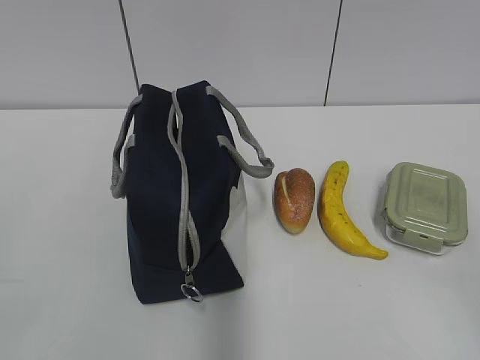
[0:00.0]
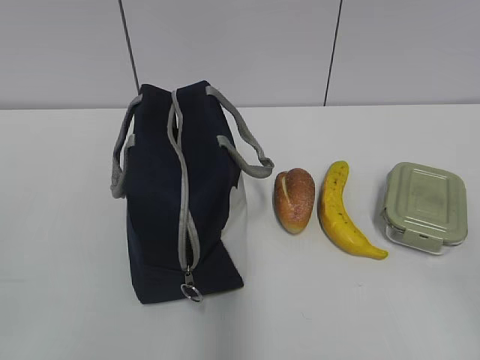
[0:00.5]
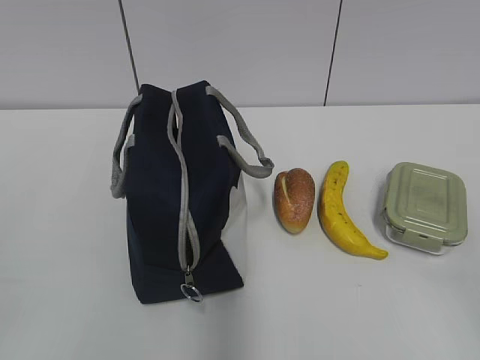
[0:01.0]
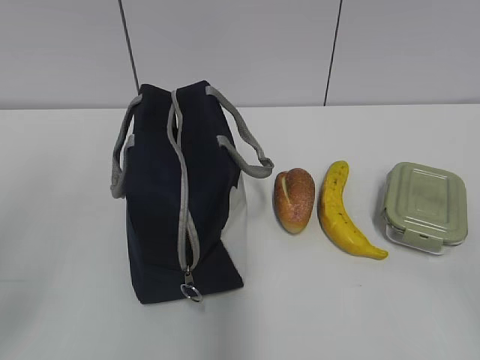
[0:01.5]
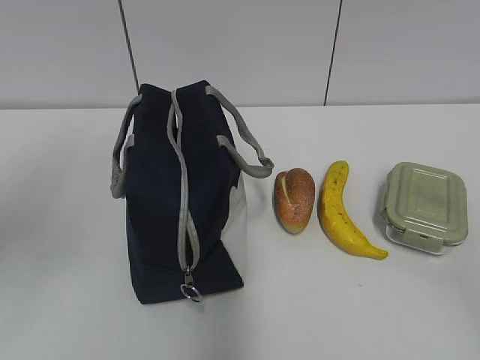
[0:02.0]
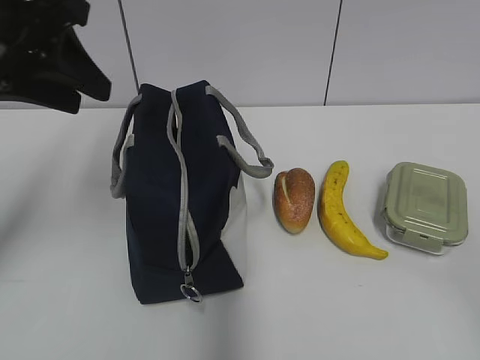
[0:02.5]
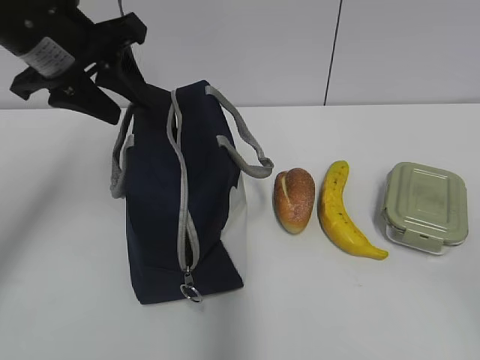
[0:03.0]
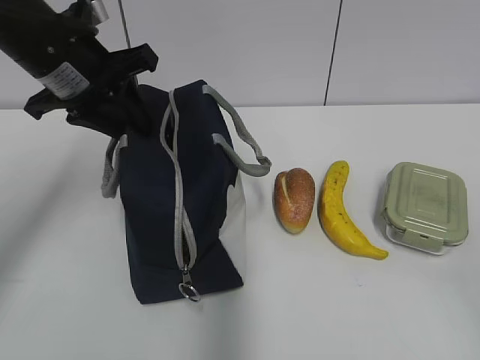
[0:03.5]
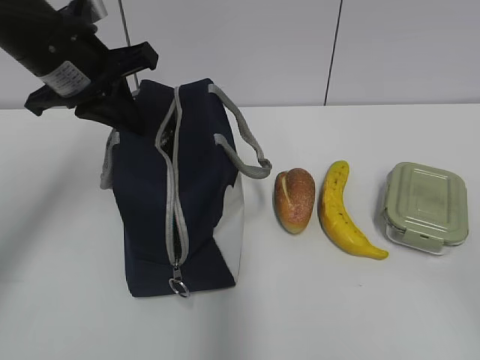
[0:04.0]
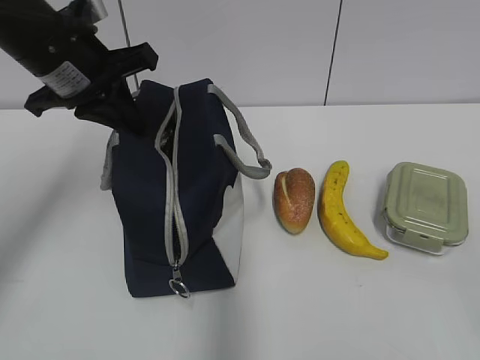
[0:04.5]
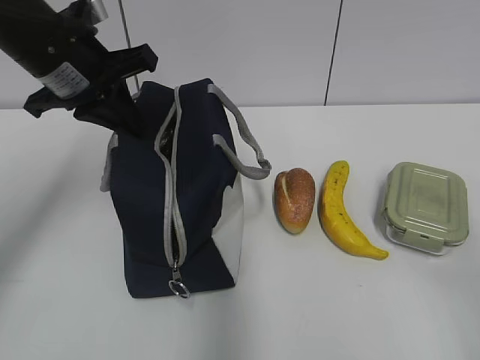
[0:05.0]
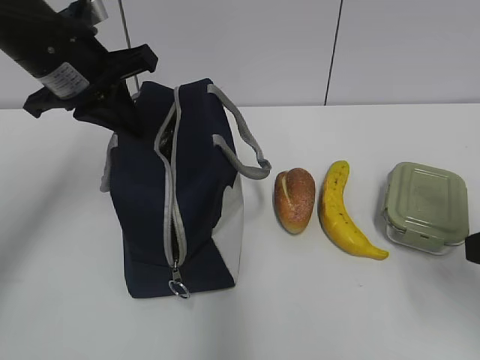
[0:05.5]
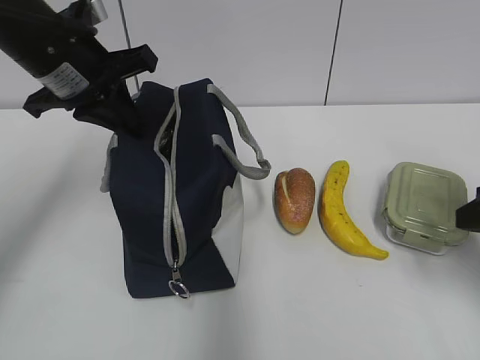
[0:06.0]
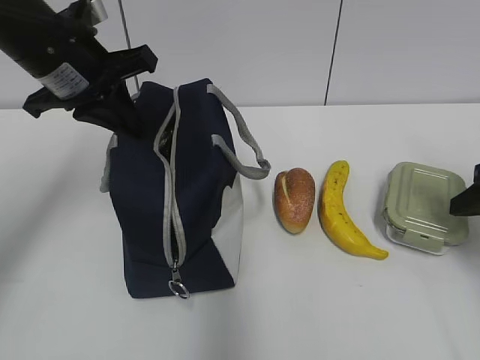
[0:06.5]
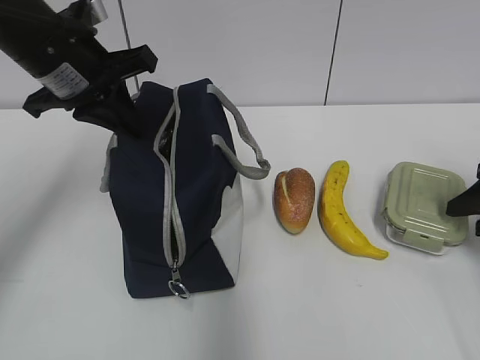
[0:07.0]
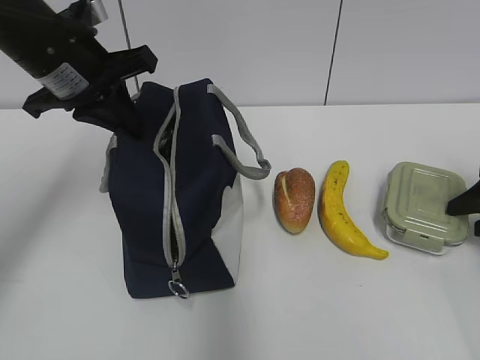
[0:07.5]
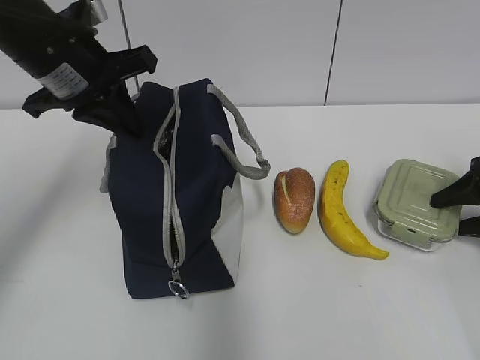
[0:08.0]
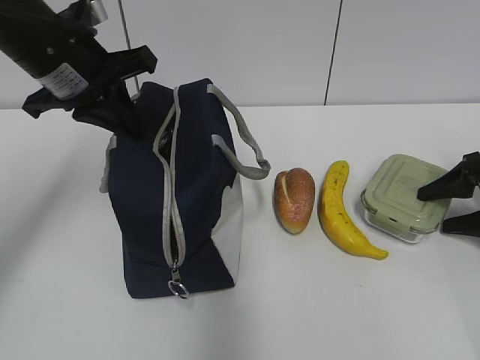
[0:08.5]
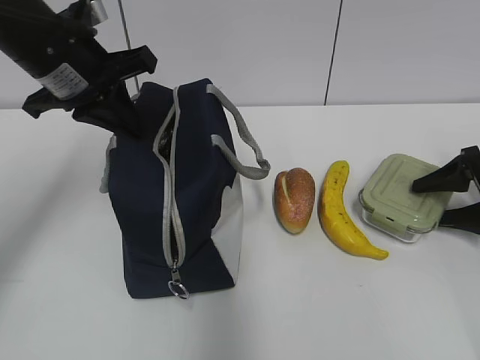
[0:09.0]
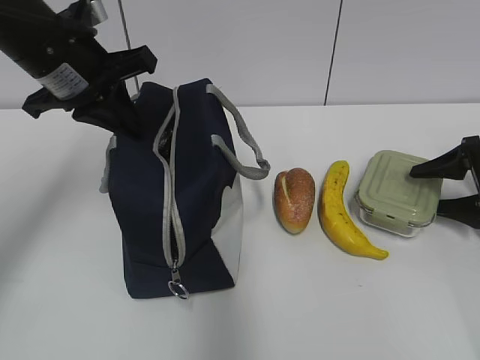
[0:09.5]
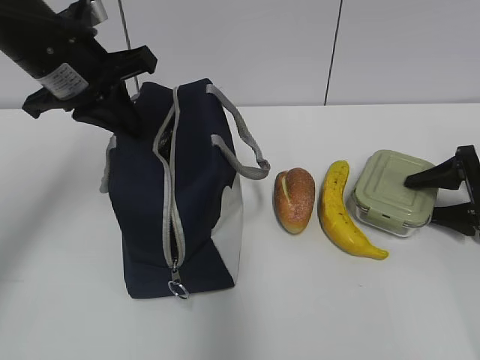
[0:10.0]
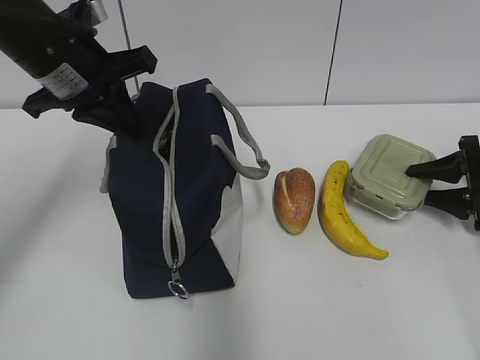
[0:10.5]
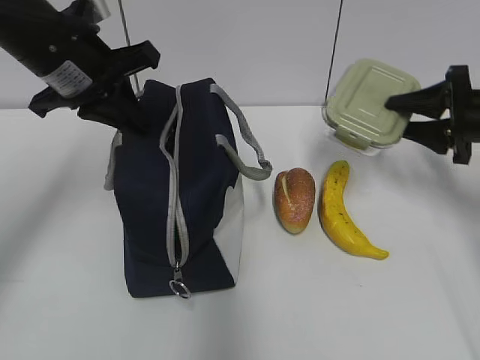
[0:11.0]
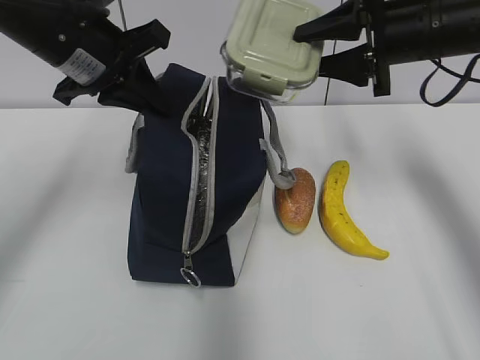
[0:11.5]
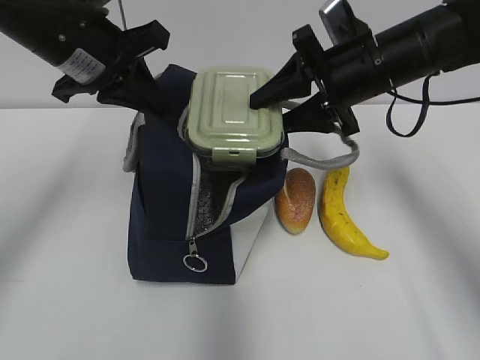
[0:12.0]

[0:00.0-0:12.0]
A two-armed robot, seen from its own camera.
Step, 0:00.0 to 0:03.5: Grab the lunch bag with your left hand.
Step, 0:04.0 to 0:10.0: Grab the lunch box with your right hand.
0:02.0 to 0:04.0: The left gripper moves forward and to the right, roughly 20 cm, and closes.
0:04.0 to 0:06.0: The right gripper heads forward, covering some 20 cm.
0:06.0 to 0:08.0: The right gripper heads forward, downward and to the right, covering approximately 15 cm.
0:08.0 to 0:10.0: The grippers move only a little.
0:10.0 to 0:12.0: The right gripper travels to the left and upward by about 25 cm.

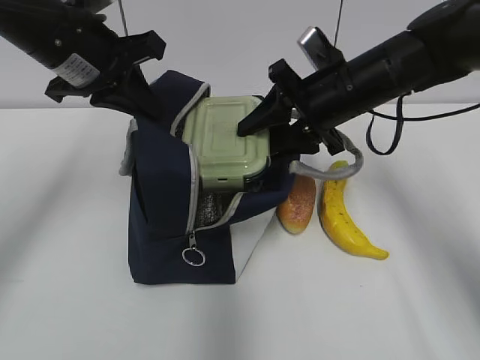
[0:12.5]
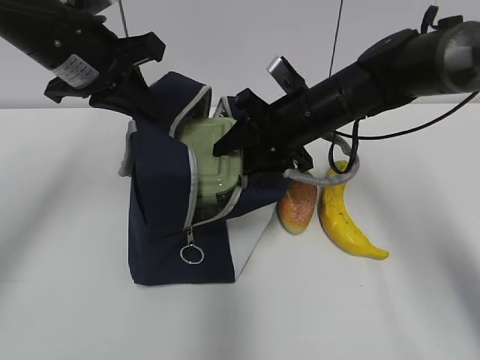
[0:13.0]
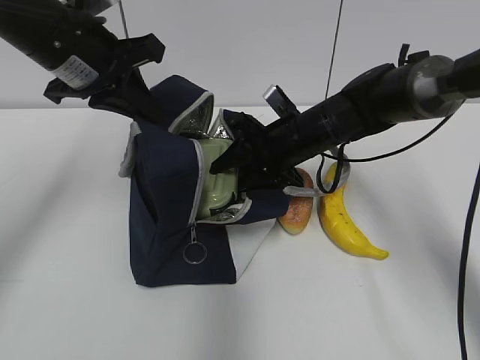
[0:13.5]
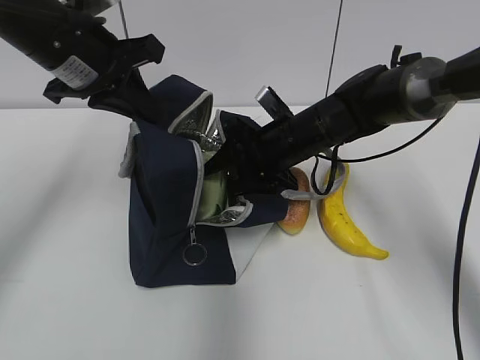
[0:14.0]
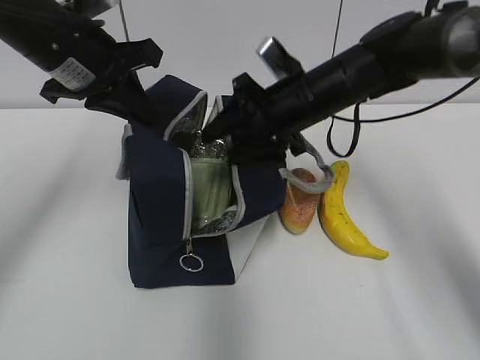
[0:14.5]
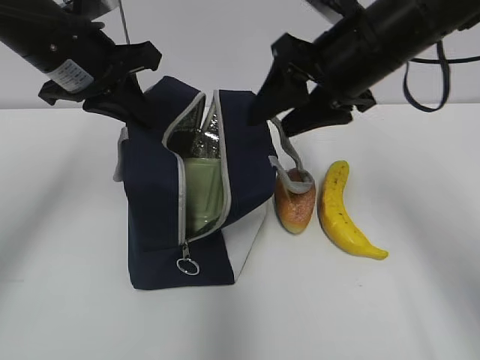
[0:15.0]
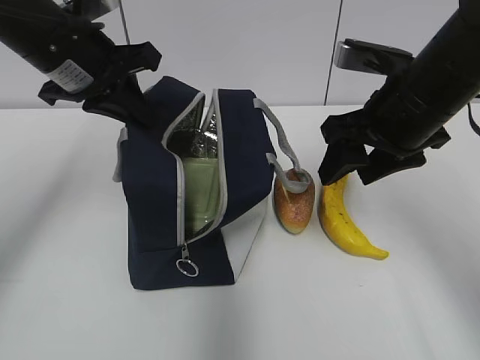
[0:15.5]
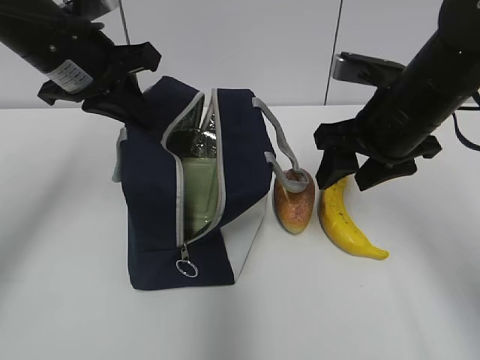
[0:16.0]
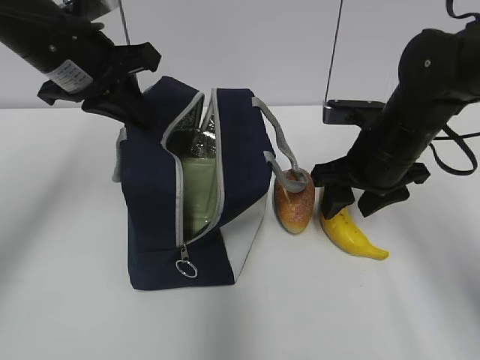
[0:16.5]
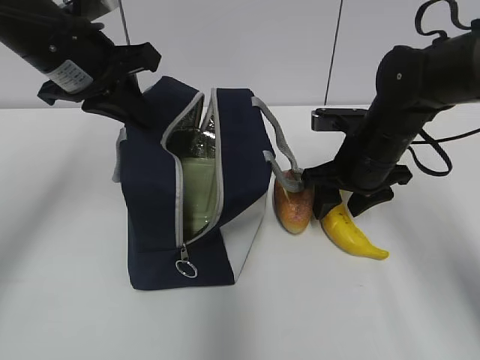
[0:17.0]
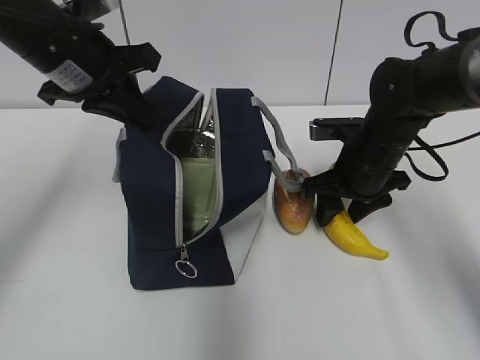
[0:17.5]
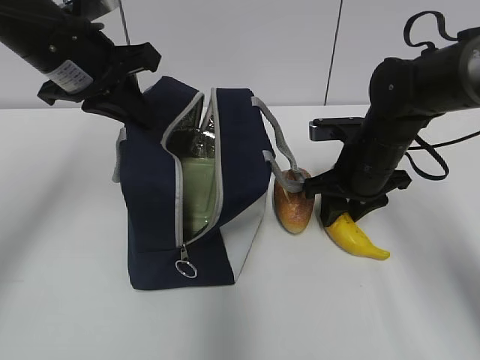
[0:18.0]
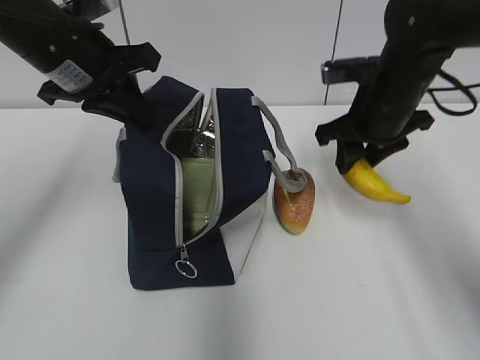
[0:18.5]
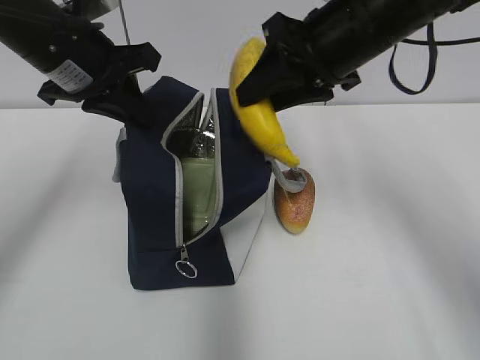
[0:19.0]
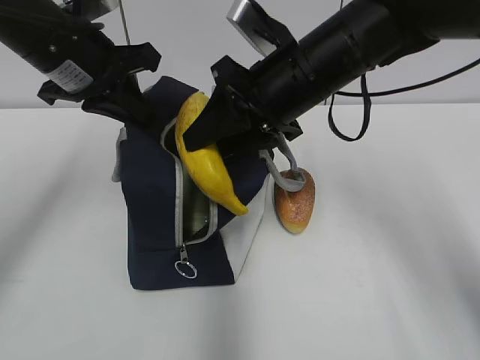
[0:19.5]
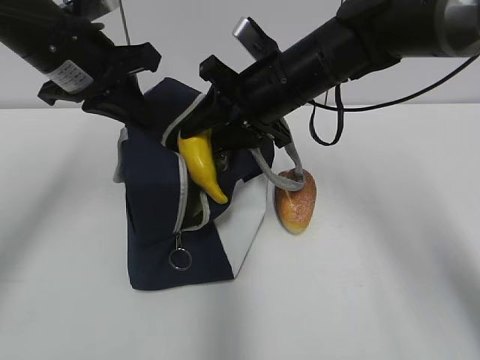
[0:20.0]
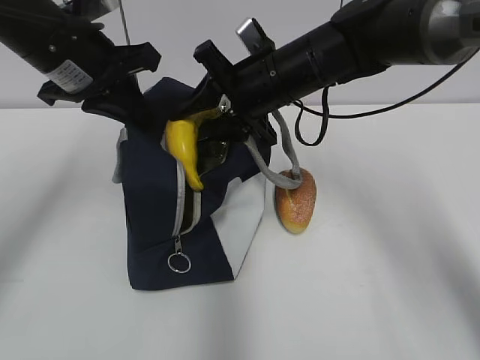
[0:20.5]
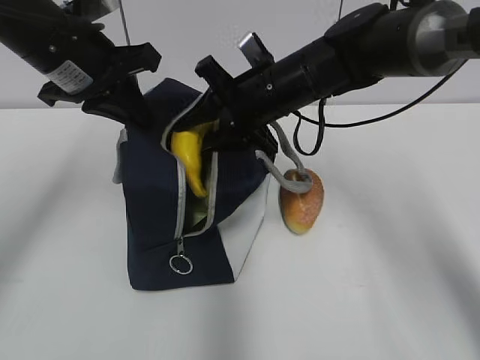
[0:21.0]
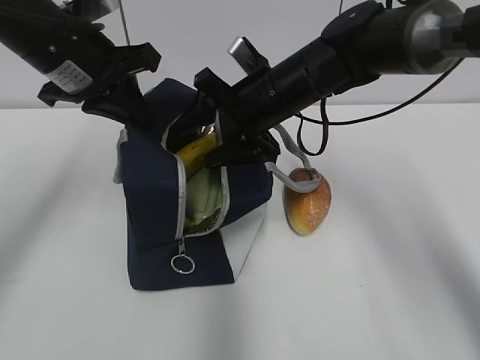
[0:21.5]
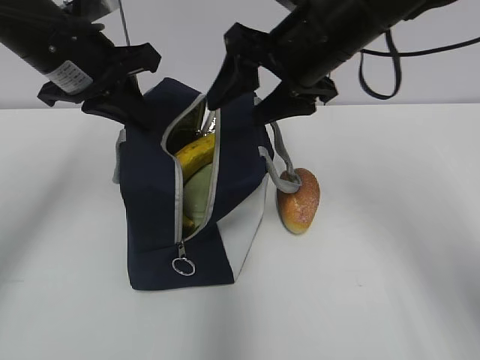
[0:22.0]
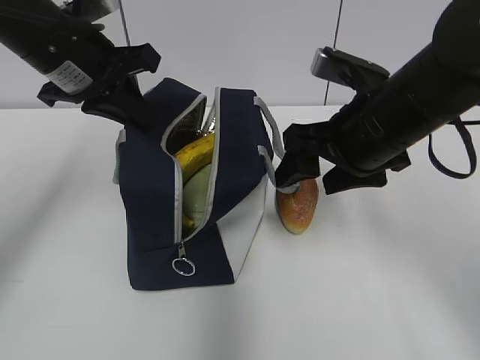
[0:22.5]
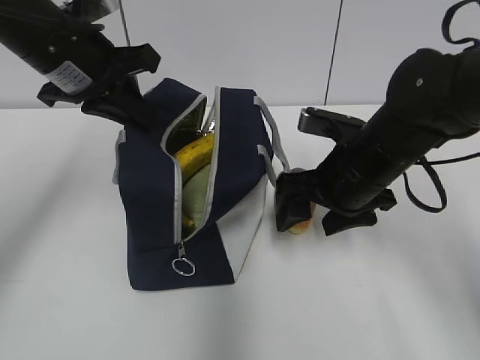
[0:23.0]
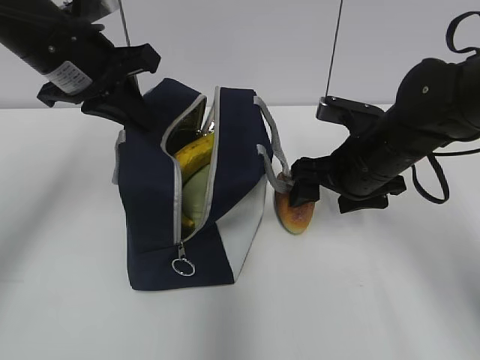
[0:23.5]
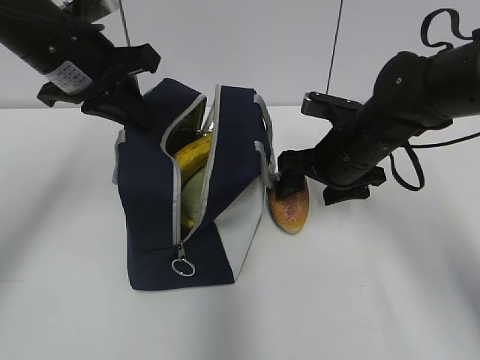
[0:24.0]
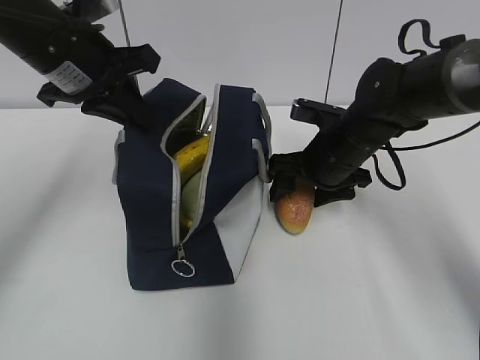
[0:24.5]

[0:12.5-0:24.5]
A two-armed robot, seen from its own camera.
Step, 0:12.5 to 0:14.5: Place it into the bag with your right hand.
Step, 0:15.0 to 0:18.0: Grab the banana with your right hand.
Step, 0:18.5 to 0:21.5: Place it into the bag with your right hand.
0:12.5 to 0:14.5: The right gripper travels downward and back again, roughly 10 cm each way.
0:14.5 to 0:16.5: The right gripper shifts roughly 10 cm to the right and backward, and moves about 10 cm upward and comes back.
0:16.5 to 0:18.5: The right gripper moves about 5 cm.
0:18.5 to 0:20.5: The right gripper is displaced to the left by approximately 10 cm.
0:20.5 to 0:22.5: The right gripper heads backward and to the right, covering about 10 cm, and opens.
0:22.5 to 0:24.5: The right gripper moves downward and forward, some 15 cm.

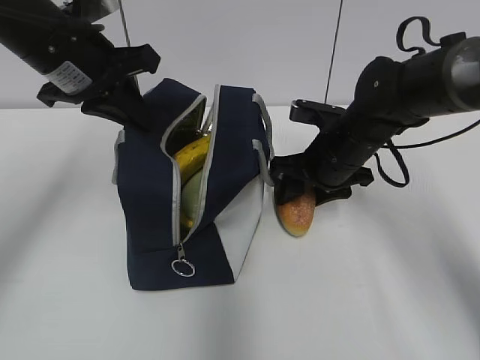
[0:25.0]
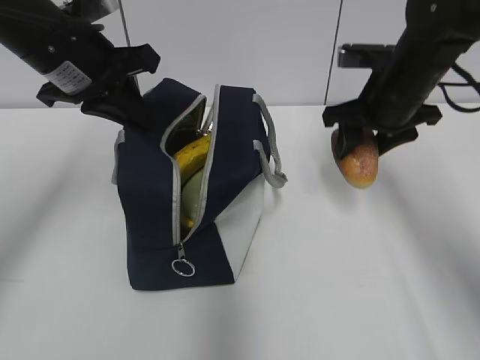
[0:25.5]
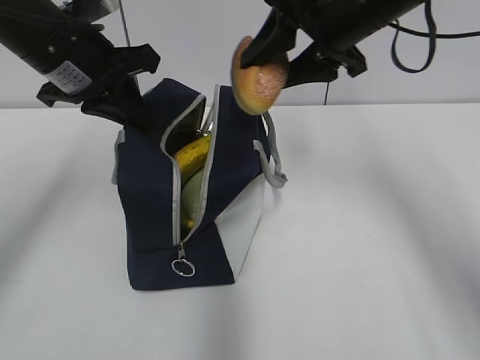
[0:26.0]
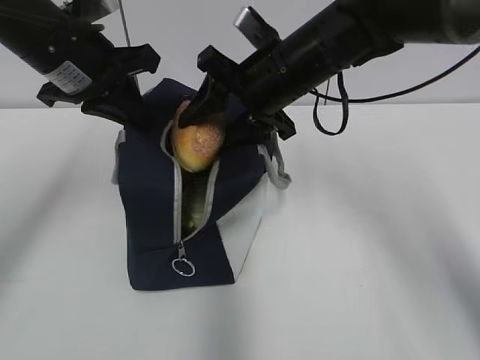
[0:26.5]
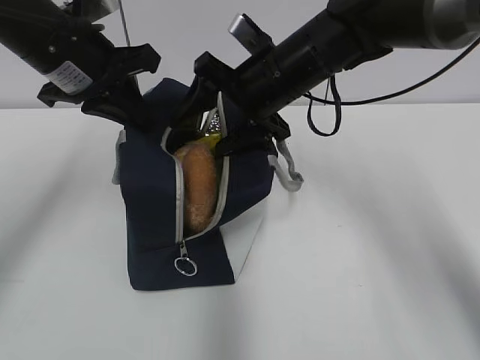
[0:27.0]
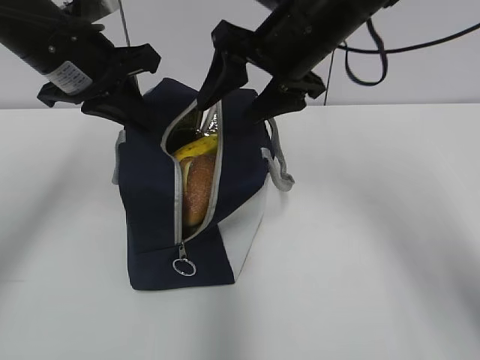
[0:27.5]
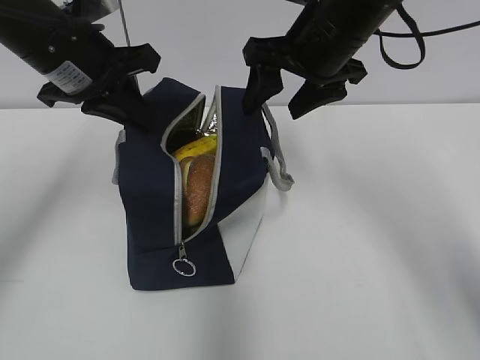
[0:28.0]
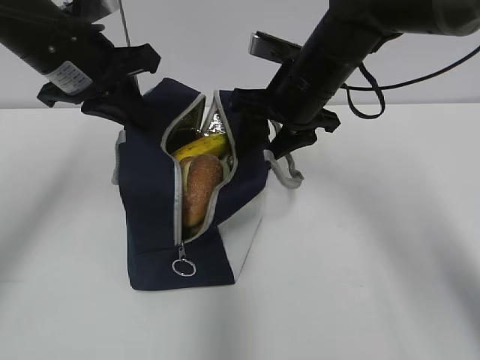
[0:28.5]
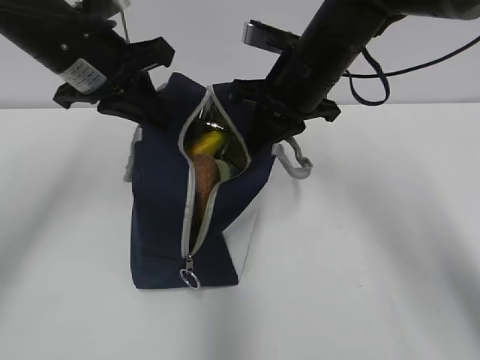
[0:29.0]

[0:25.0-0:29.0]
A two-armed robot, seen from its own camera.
Step, 0:27.0 to 0:28.5: Grab the lunch bag with your right hand.
0:25.0 to 0:27.0: The right gripper is displaced upward and to the left by approximately 10 cm.
0:27.0 to 0:29.0: The right gripper closes.
